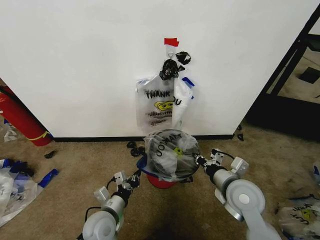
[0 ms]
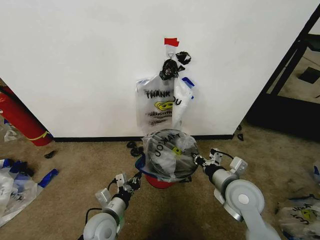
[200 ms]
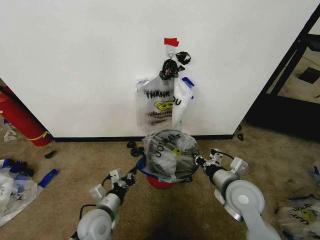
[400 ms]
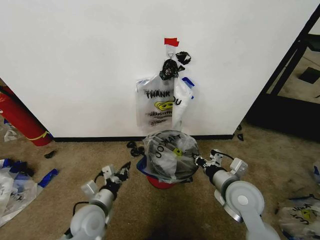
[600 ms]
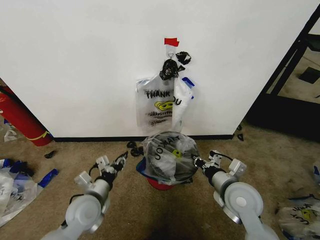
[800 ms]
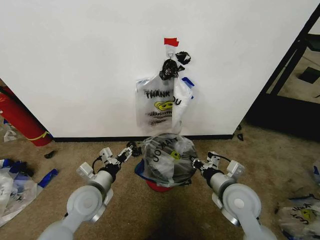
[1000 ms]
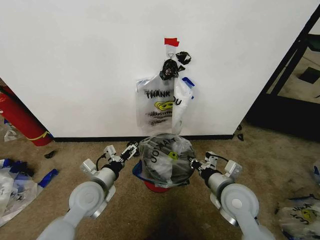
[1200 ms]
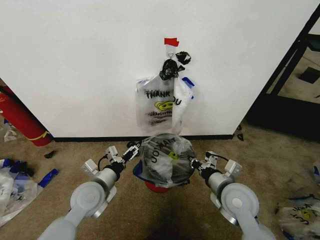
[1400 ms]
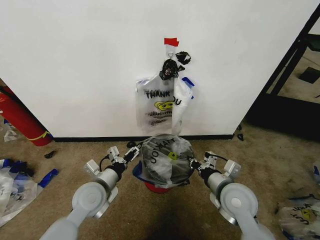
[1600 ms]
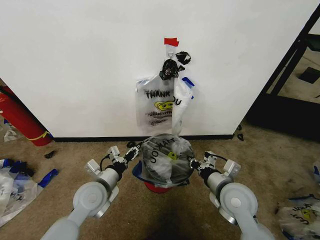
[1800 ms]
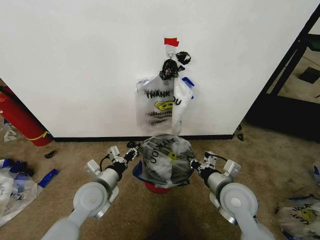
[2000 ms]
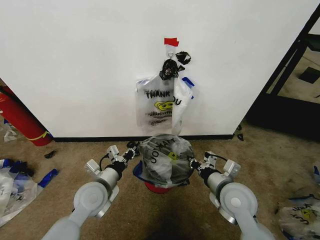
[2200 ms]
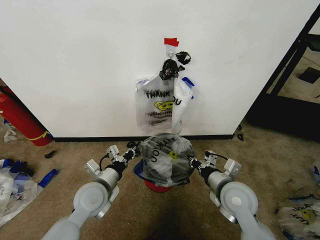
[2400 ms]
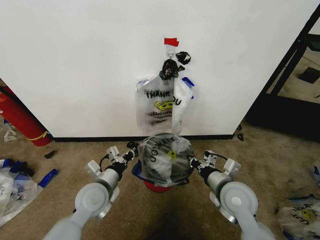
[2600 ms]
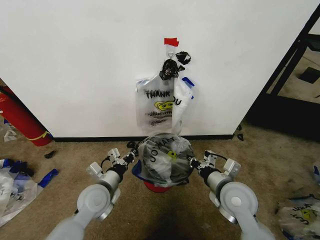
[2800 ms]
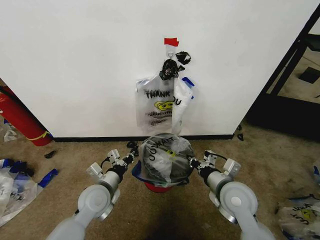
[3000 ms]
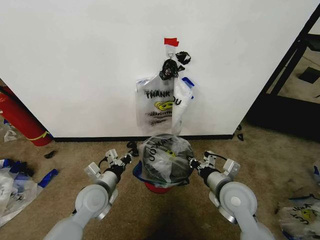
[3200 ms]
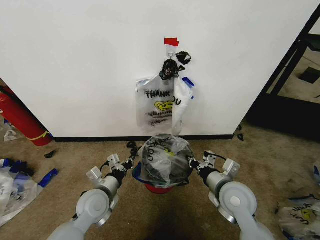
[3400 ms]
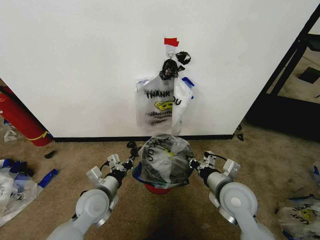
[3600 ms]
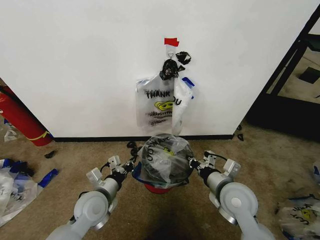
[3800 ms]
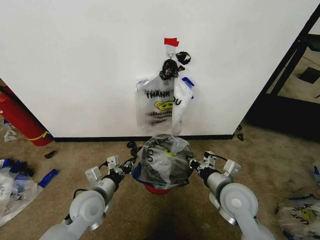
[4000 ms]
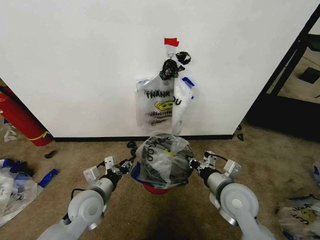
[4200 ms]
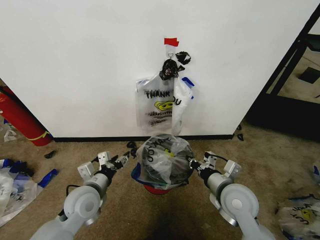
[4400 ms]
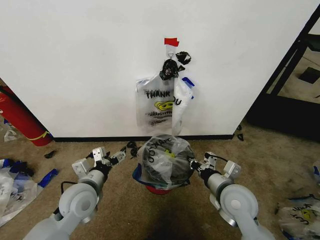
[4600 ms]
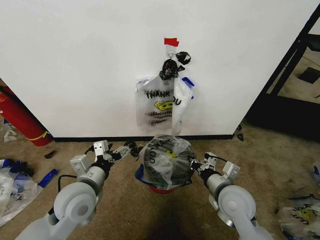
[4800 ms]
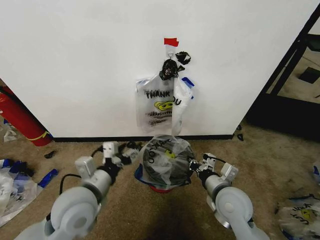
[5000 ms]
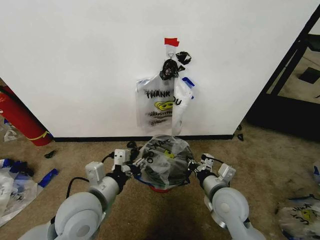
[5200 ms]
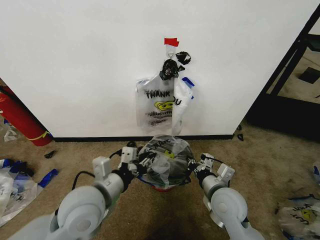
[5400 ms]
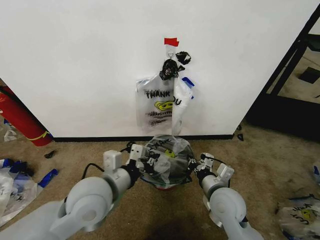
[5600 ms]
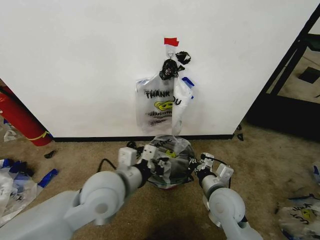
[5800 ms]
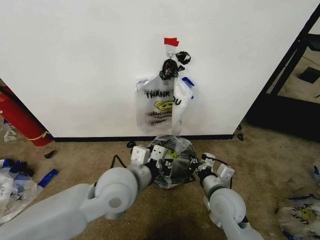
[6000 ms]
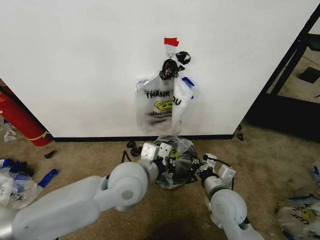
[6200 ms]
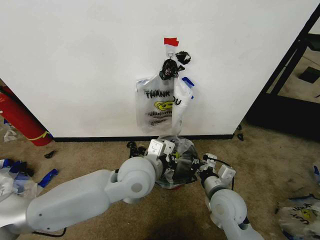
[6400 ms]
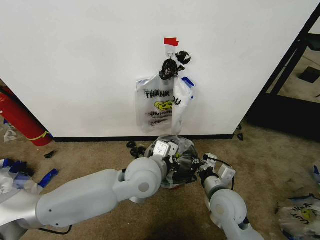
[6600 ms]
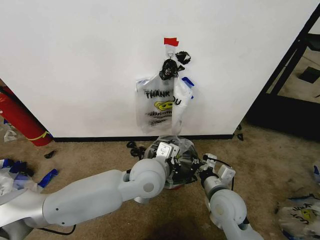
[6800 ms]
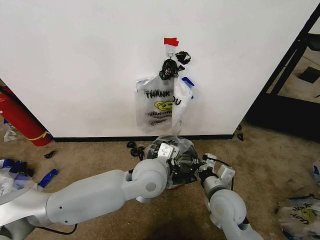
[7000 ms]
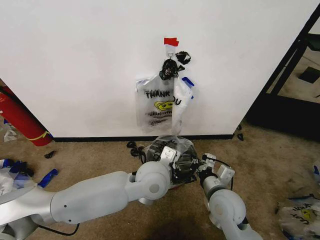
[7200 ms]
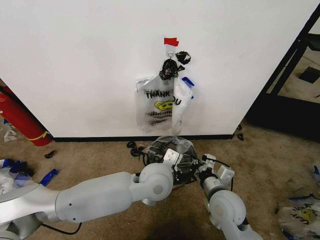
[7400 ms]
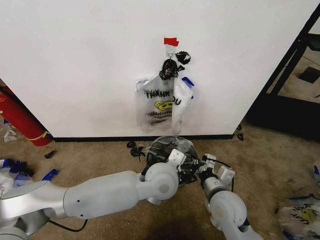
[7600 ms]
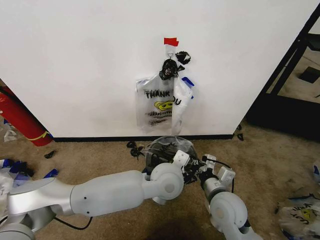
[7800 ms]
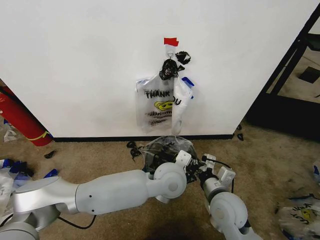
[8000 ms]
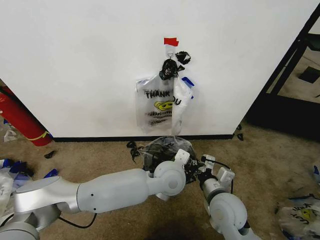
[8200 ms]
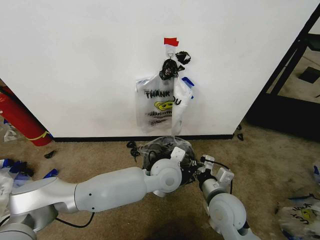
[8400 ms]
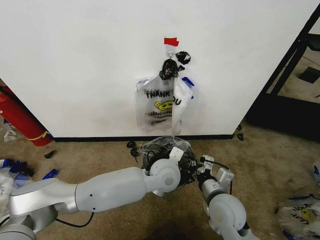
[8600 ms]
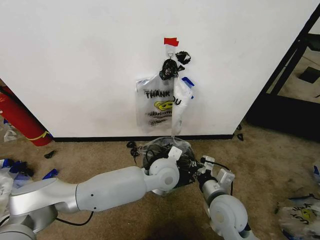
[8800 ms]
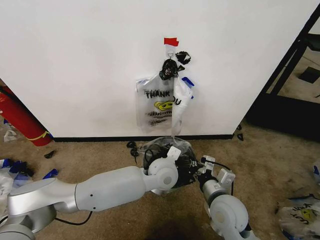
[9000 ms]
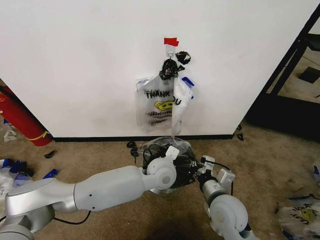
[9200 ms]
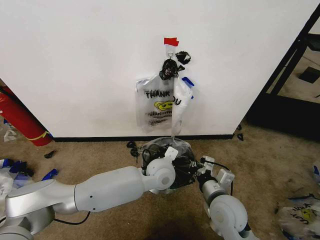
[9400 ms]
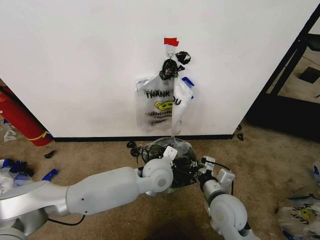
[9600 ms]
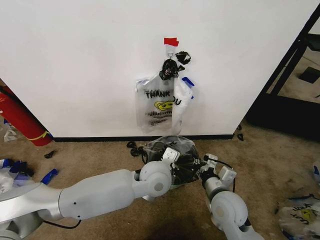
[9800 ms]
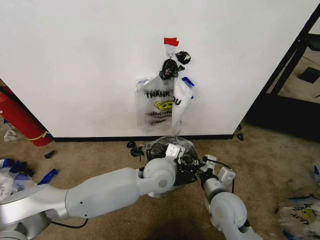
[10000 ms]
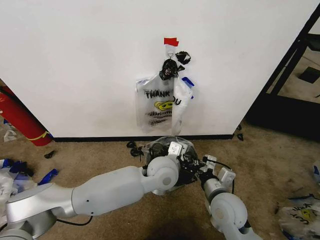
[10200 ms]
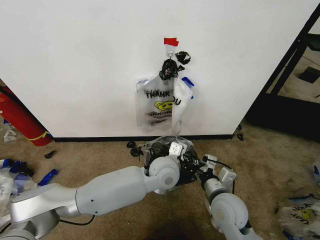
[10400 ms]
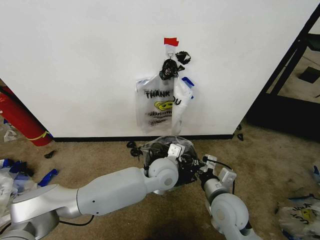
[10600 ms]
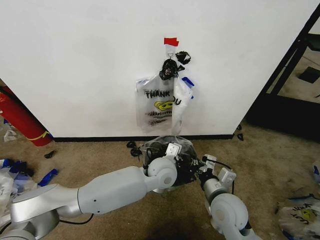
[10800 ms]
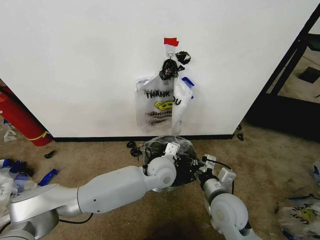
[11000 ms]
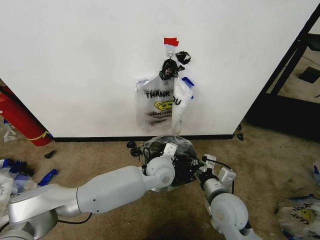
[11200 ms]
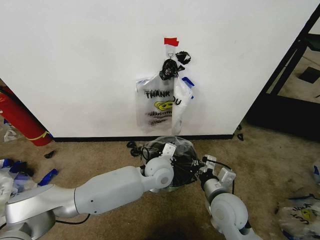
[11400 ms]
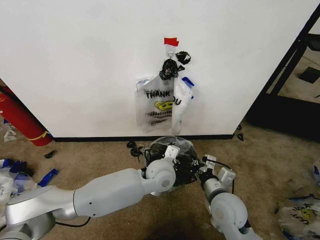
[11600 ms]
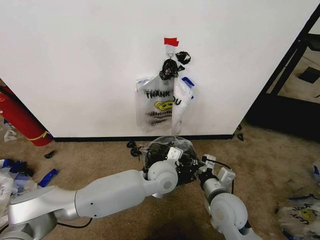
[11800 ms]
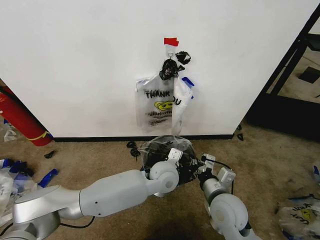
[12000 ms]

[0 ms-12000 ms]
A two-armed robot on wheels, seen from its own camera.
Task of the whole recording: Pick up the garbage bag from the wall and place it over the trash bin.
0 ms to 1600 ms: The left gripper travels upward and forward by about 10 cm, and opens its fingers.
1600 ms to 3000 ms: The left gripper closes.
3000 ms to 4400 ms: The left gripper opens its fingers.
4400 ms to 6000 ms: The left gripper is displaced to the right and upward by approximately 20 cm, and closes up.
6000 ms to 7600 ms: The left gripper shifts roughly 10 cm to the right and downward.
7600 ms to 9000 ms: The left gripper changes place by approximately 5 cm.
9000 ms to 12000 ms: There are only small adjustments of the grippers.

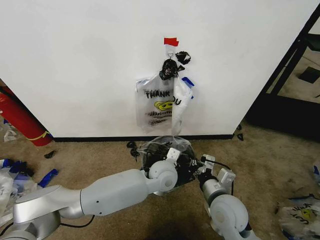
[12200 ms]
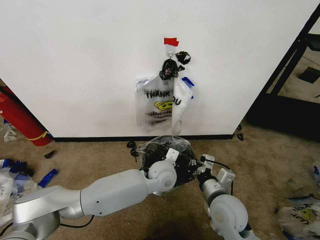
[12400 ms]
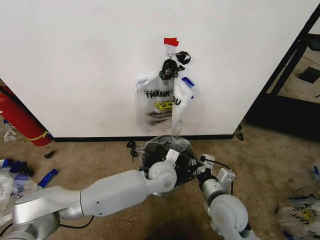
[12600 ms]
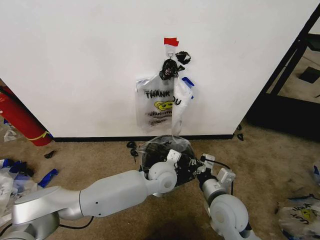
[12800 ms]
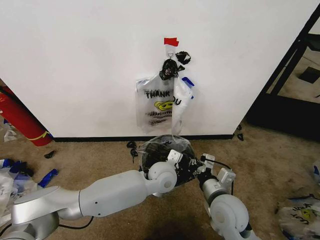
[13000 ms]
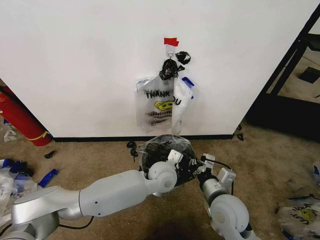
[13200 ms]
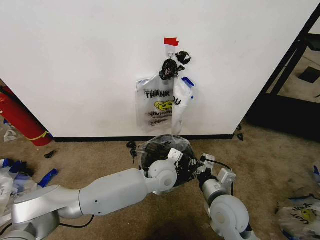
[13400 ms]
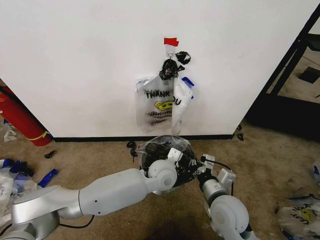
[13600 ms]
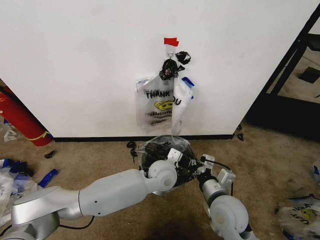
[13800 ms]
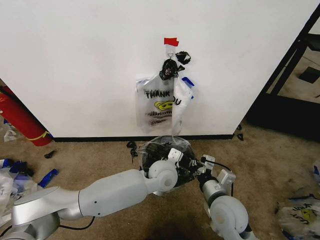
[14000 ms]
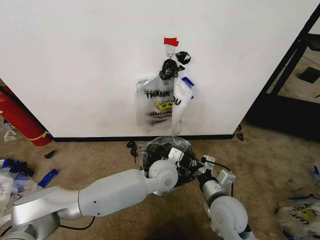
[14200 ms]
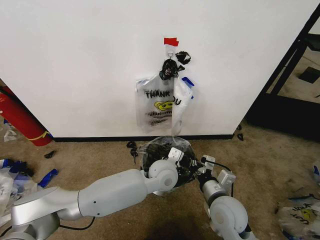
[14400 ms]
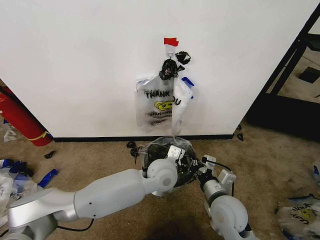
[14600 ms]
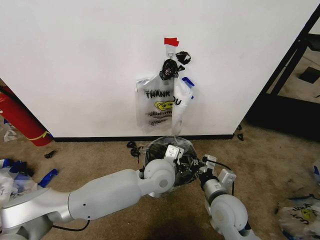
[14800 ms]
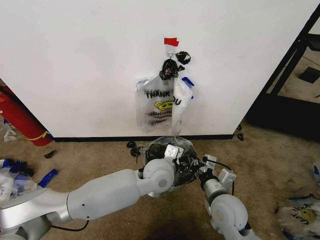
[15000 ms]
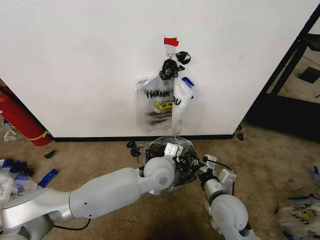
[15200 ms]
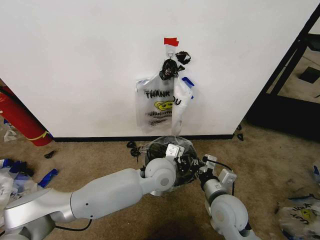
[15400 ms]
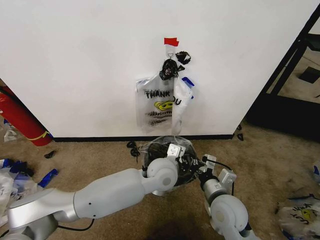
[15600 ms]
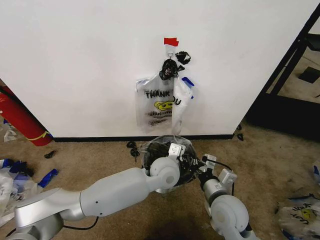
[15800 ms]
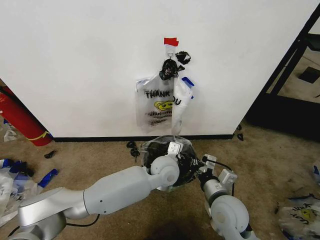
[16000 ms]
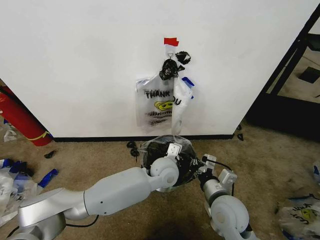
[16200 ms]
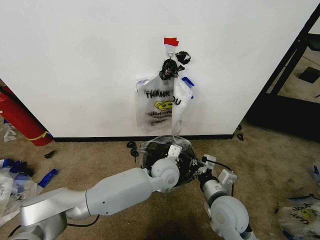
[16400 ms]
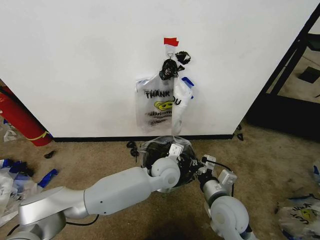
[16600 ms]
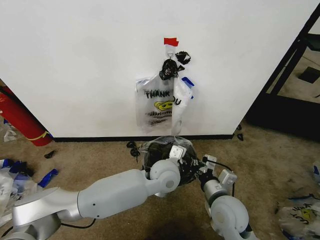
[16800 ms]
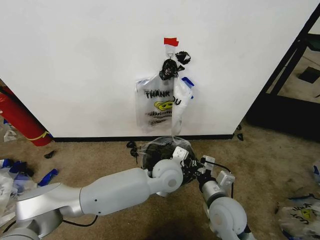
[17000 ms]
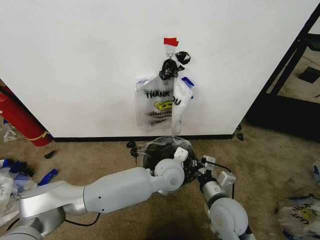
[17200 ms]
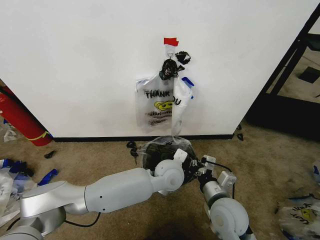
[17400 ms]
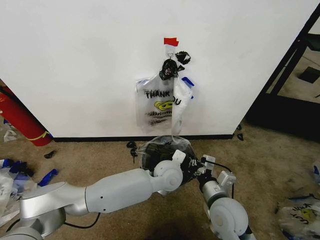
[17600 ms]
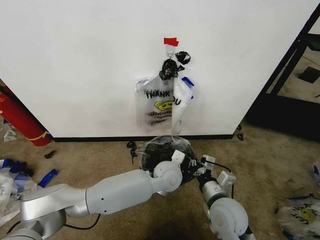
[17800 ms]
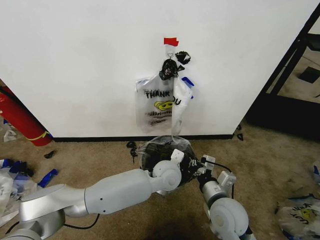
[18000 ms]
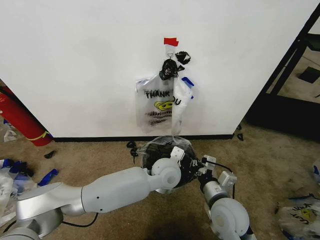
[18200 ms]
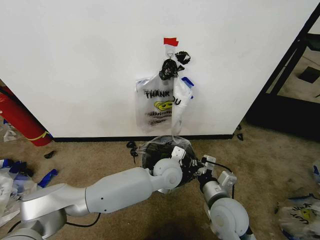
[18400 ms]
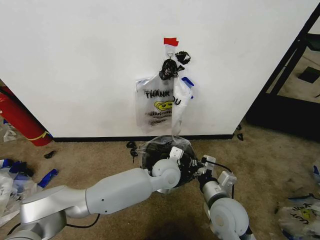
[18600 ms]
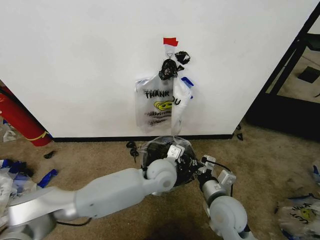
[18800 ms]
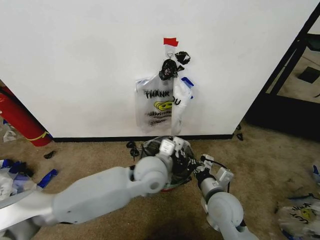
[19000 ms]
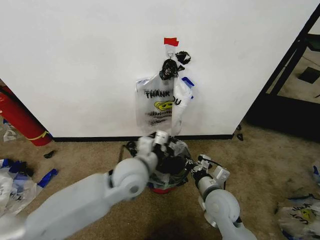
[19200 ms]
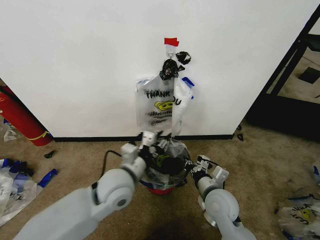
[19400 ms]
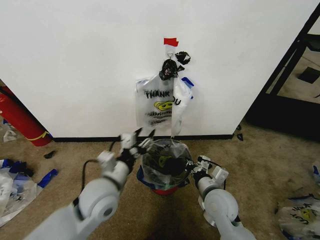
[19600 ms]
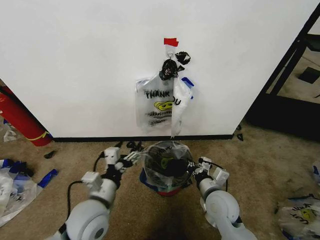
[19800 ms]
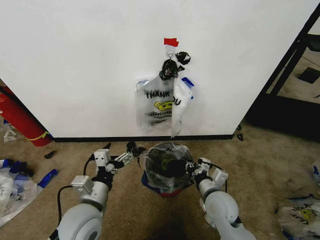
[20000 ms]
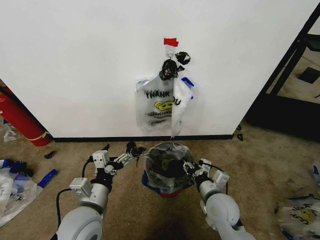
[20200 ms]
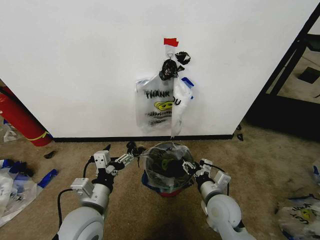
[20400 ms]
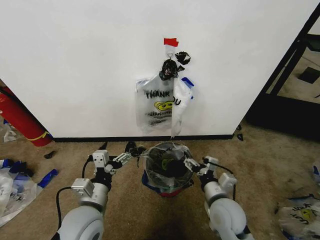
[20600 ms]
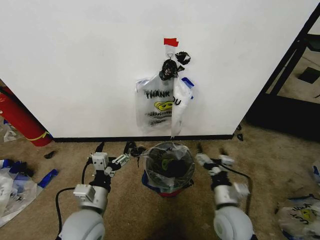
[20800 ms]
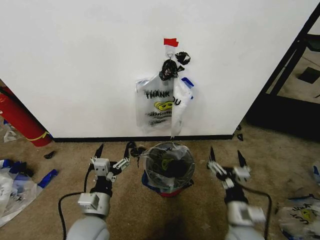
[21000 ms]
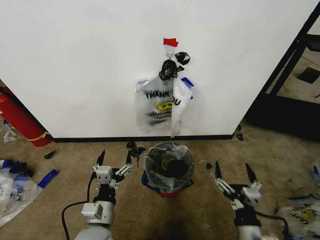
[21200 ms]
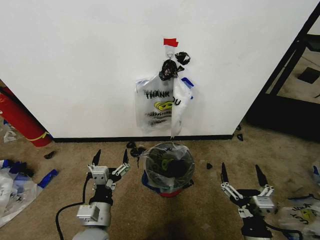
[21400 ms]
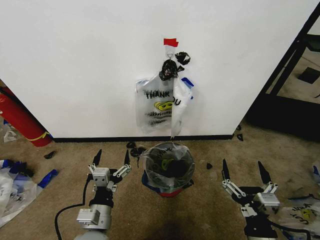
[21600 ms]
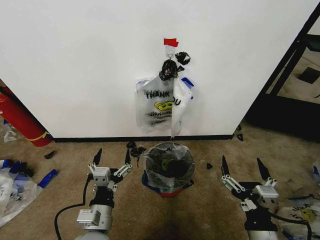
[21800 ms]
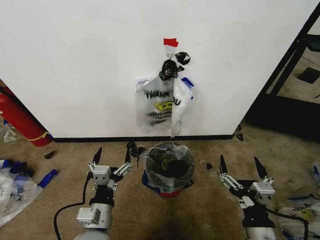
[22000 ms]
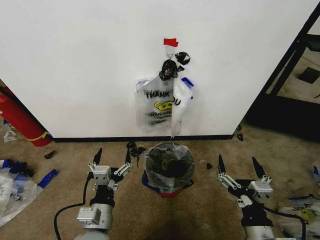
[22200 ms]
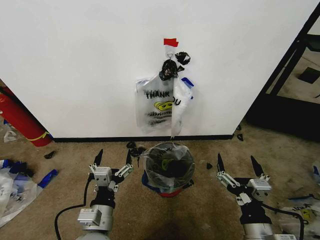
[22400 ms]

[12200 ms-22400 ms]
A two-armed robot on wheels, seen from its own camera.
Task of the whole recording: Pick up the garbage bag from the wall and place it over the trash bin.
12200 ms to 13600 ms: The left gripper opens.
13600 ms to 15200 ms: The left gripper opens, then closes again.
15200 ms to 16600 ms: The left gripper closes.
16600 ms to 18000 ms: There are only small adjustments of the grippers.
18000 ms to 19400 ms: The left gripper heads to the left, backward and upward, covering roughly 20 cm, and opens.
19400 ms to 21000 ms: The right gripper goes about 10 cm backward, and opens; the left gripper goes about 15 cm backward, downward and to the left, and opens up.
21000 ms to 22400 ms: The left gripper shifts by approximately 5 cm; the right gripper is displaced backward and upward by about 10 cm.
